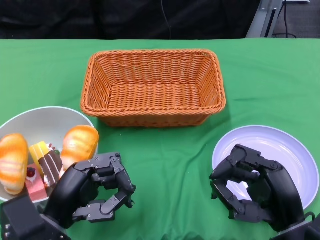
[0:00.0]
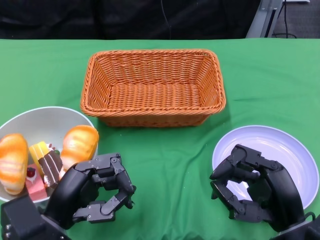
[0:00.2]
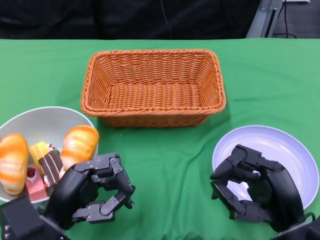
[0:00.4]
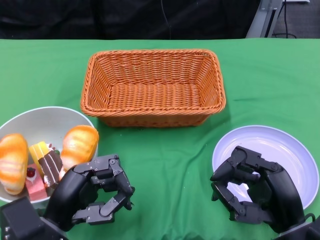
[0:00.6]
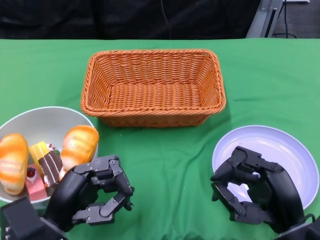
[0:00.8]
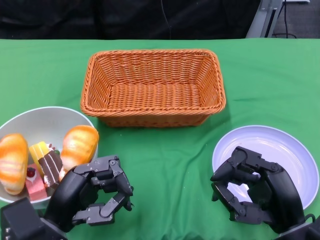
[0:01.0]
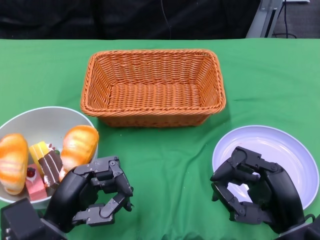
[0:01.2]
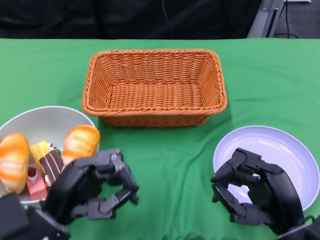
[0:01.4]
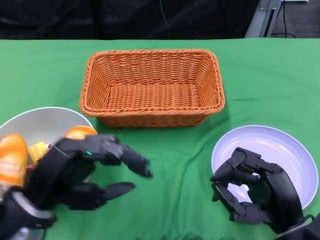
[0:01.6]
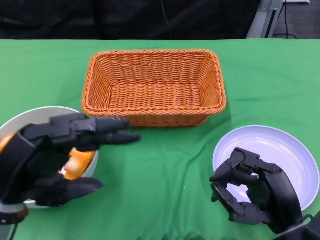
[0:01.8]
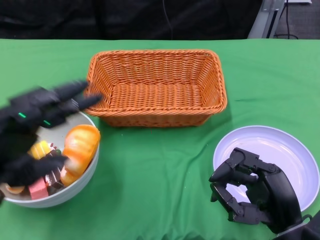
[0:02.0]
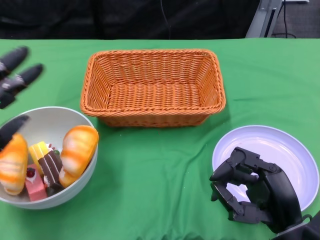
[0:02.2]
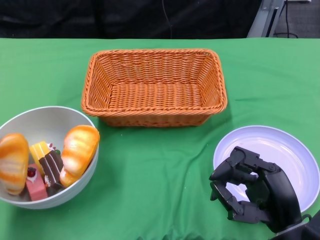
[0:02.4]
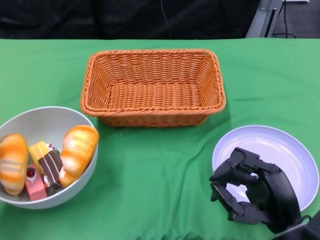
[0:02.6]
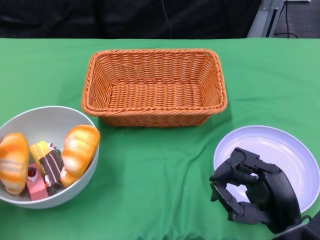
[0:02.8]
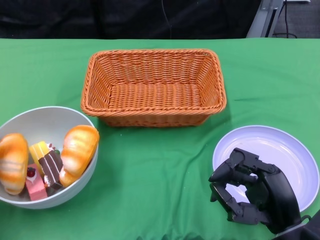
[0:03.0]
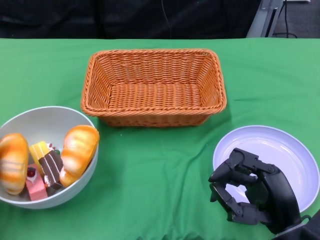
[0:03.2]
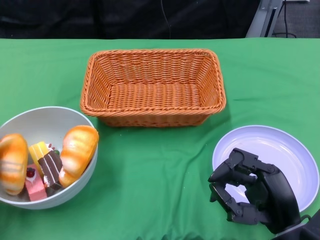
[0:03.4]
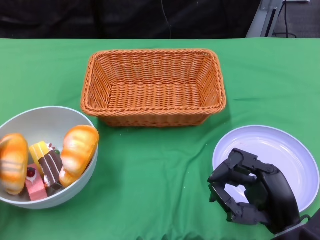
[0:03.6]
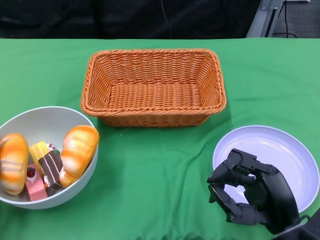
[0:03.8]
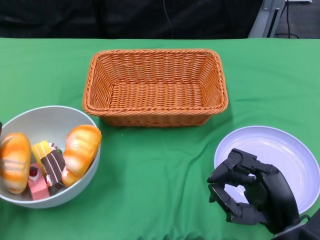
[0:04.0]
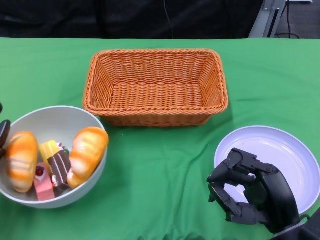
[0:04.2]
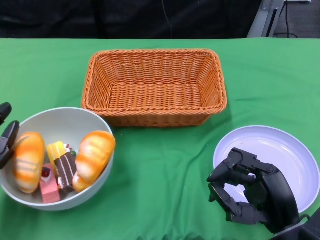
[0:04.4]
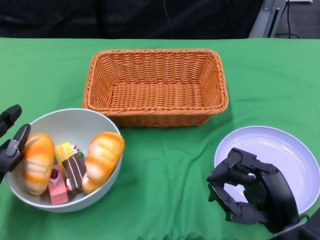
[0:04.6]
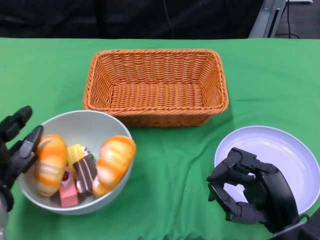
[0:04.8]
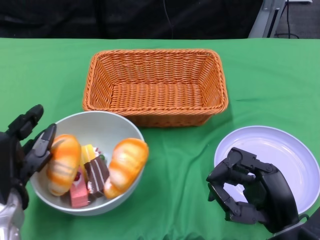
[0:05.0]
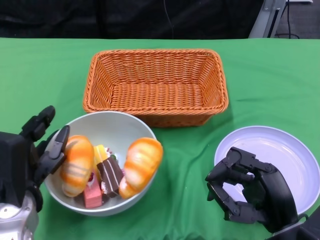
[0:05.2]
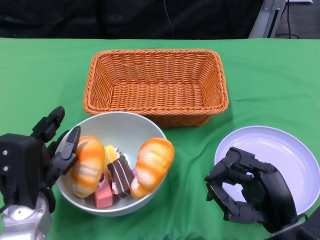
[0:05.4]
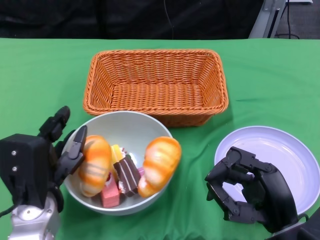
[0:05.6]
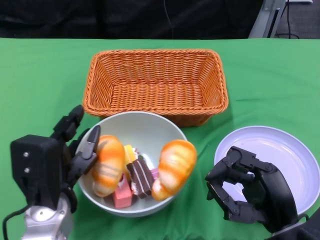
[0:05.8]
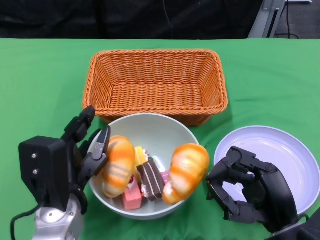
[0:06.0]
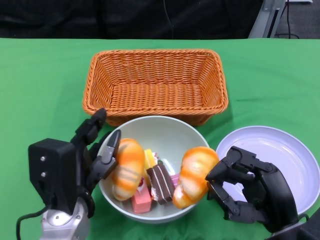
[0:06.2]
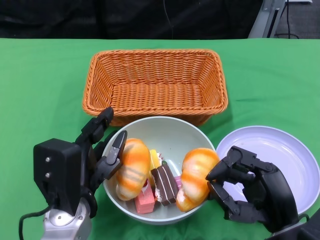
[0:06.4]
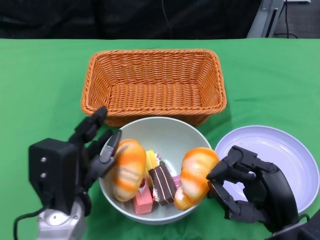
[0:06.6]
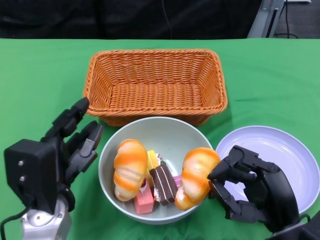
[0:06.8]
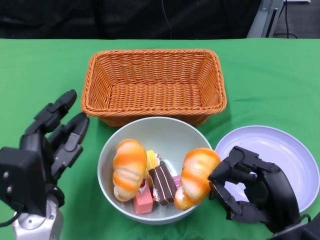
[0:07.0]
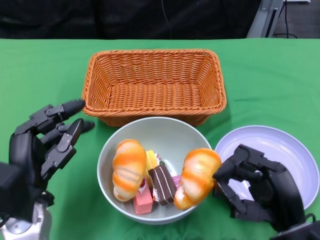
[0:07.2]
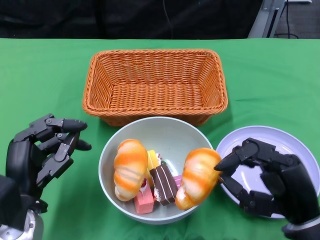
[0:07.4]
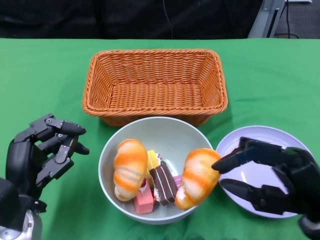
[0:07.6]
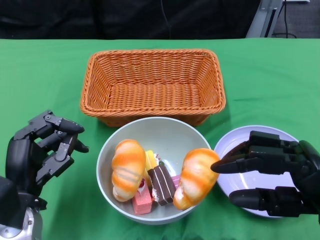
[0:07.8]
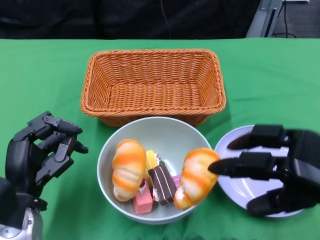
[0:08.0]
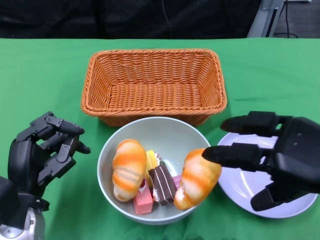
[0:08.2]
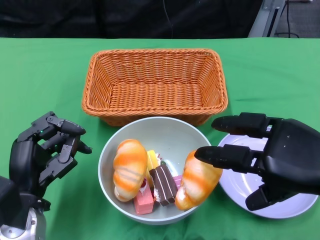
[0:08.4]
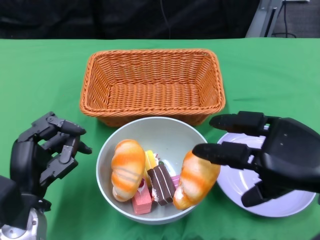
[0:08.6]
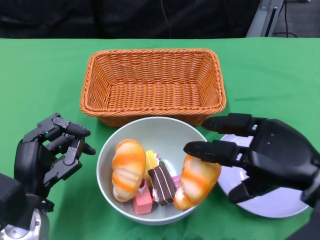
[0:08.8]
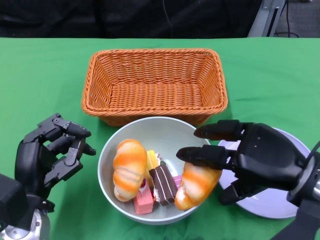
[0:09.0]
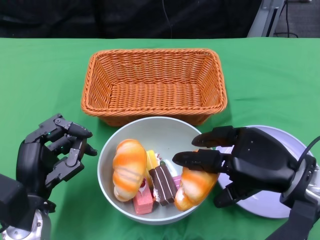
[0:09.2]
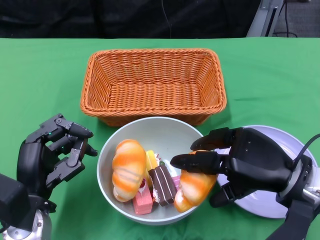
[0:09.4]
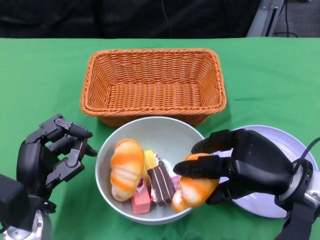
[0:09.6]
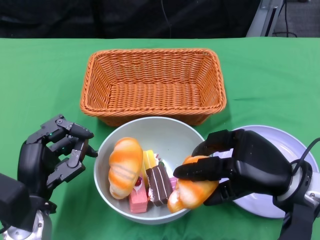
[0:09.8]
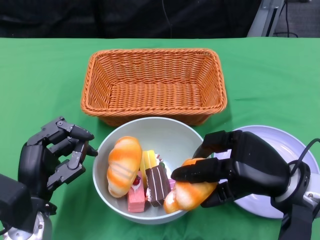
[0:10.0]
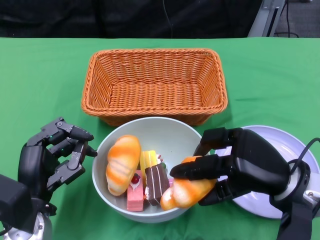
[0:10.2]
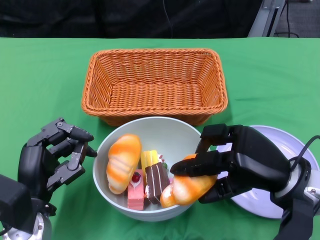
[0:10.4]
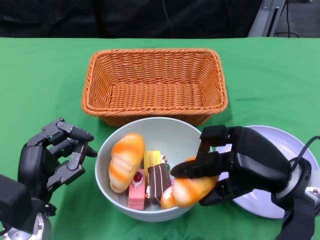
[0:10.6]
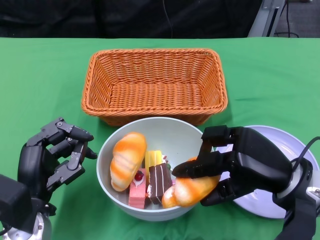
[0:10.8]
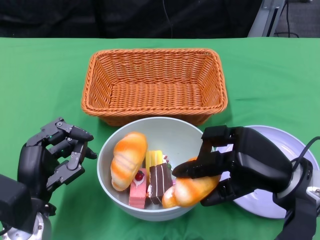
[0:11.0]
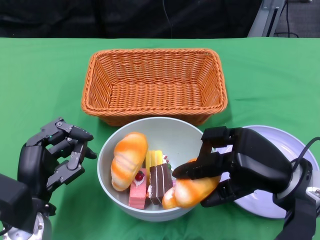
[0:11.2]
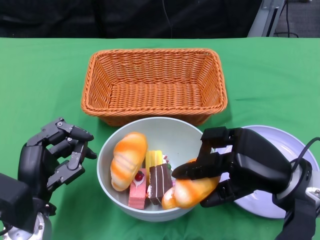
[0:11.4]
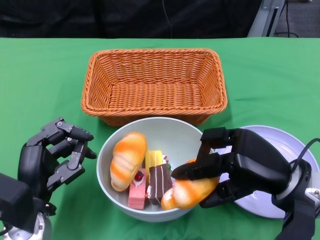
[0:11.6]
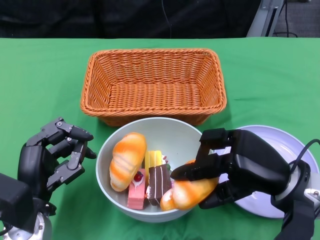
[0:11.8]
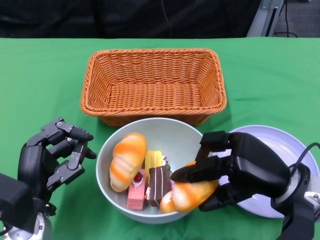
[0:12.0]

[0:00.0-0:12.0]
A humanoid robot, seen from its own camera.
Step, 0:00.0 to 0:06.6: Push the bowl to the center of the table using the left gripper.
0:01.6 to 0:03.0: The left hand heads to the left, covering roughly 15 cm.
0:04.4 to 0:06.0: The left hand travels to the right by some 15 cm.
0:06.0 to 0:07.6: The left hand goes about 5 cm to the left, while the right hand changes place by roughly 5 cm.
0:07.6 to 0:09.0: The right hand goes about 5 cm forward.
0:09.0 to 0:10.4: The hands make only small movements.
0:10.4 to 0:12.0: There are only small adjustments of the hands.

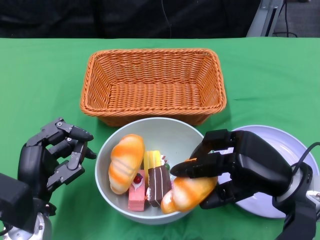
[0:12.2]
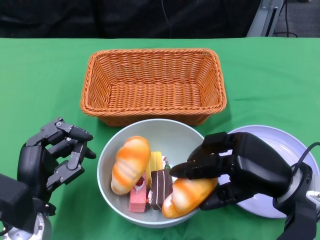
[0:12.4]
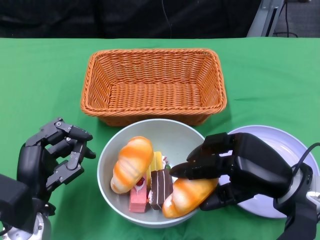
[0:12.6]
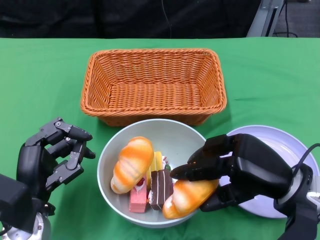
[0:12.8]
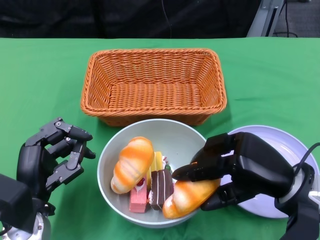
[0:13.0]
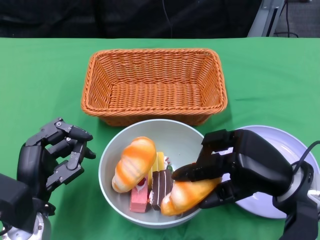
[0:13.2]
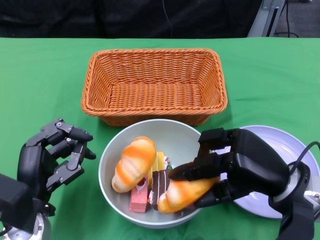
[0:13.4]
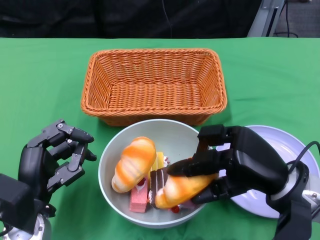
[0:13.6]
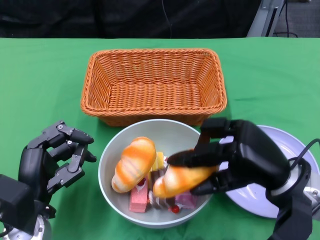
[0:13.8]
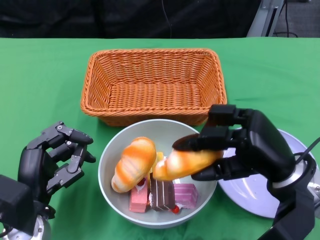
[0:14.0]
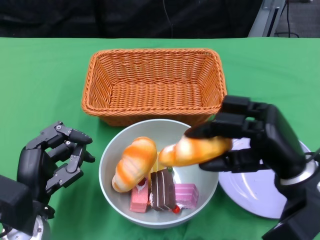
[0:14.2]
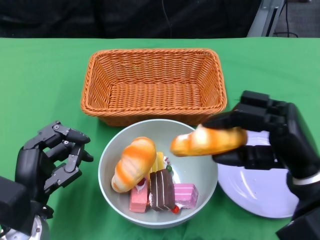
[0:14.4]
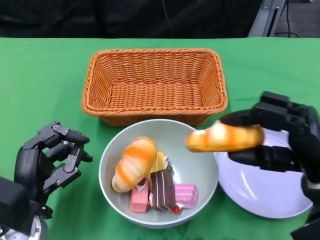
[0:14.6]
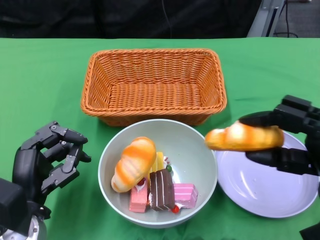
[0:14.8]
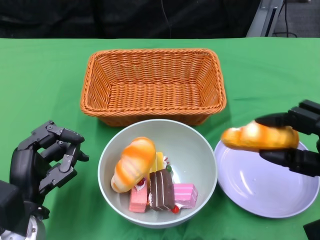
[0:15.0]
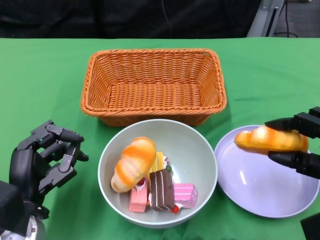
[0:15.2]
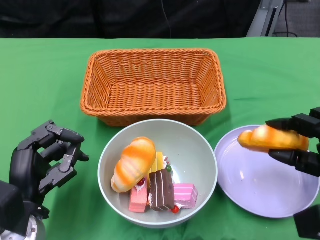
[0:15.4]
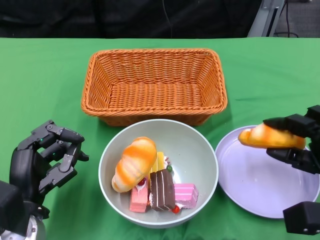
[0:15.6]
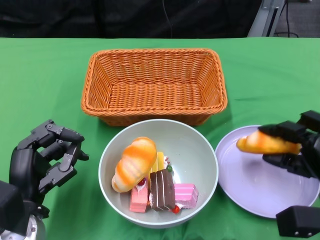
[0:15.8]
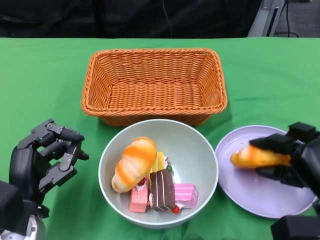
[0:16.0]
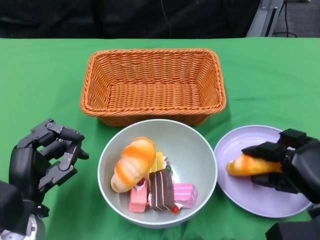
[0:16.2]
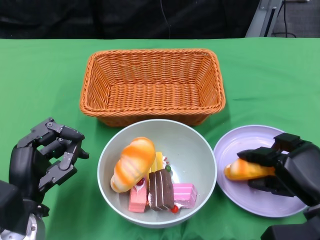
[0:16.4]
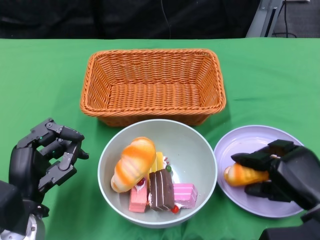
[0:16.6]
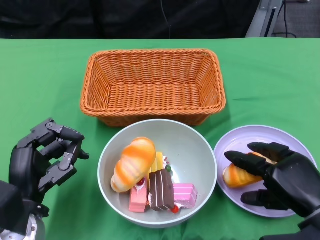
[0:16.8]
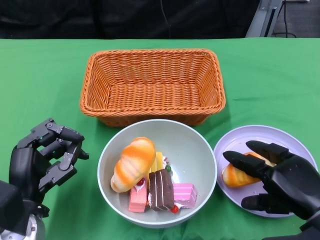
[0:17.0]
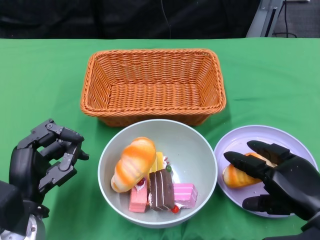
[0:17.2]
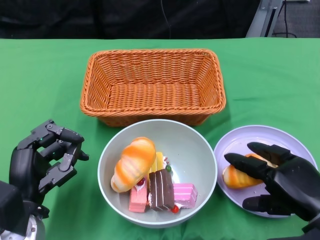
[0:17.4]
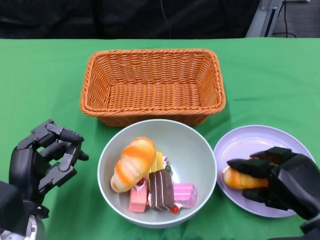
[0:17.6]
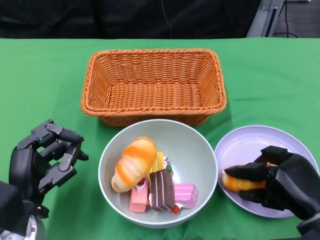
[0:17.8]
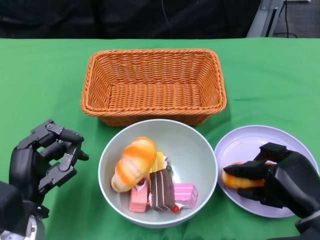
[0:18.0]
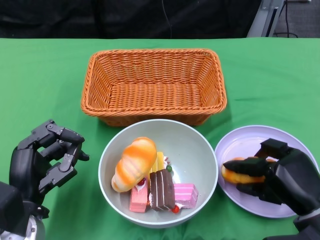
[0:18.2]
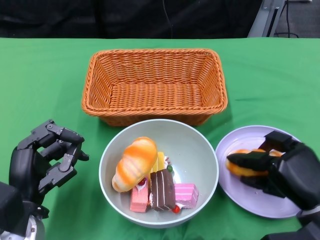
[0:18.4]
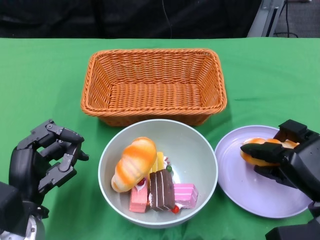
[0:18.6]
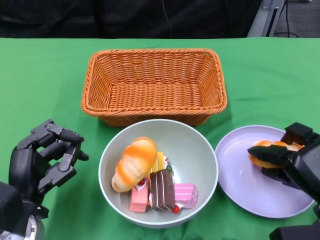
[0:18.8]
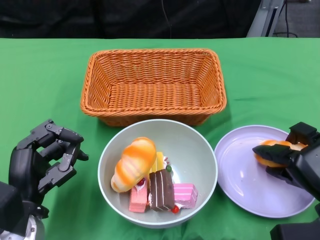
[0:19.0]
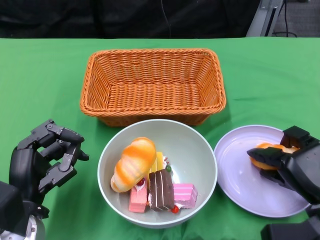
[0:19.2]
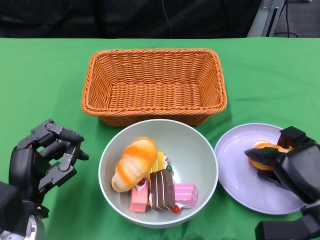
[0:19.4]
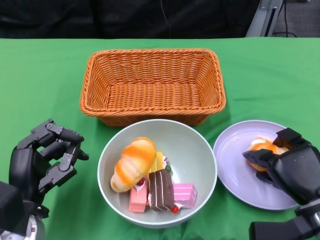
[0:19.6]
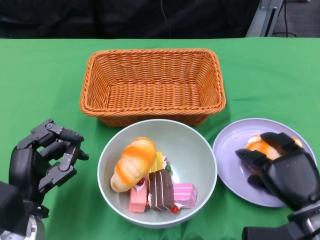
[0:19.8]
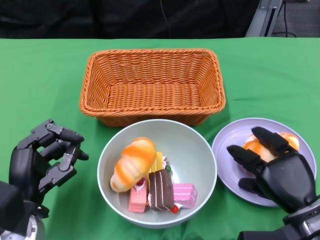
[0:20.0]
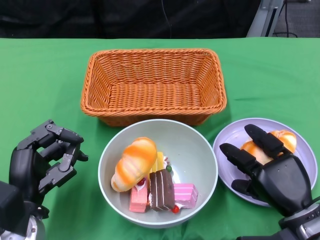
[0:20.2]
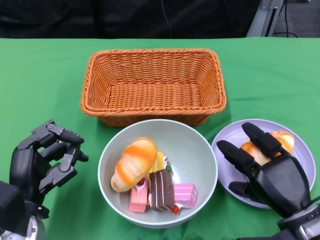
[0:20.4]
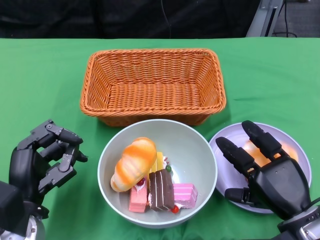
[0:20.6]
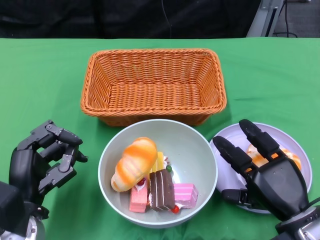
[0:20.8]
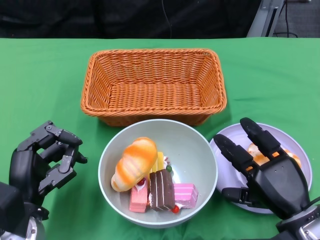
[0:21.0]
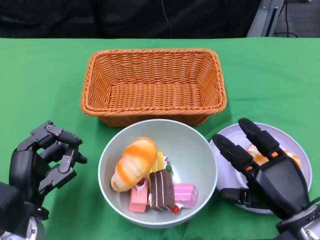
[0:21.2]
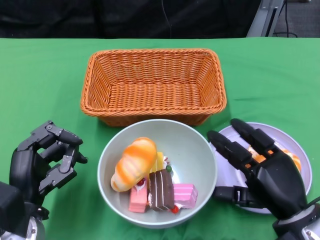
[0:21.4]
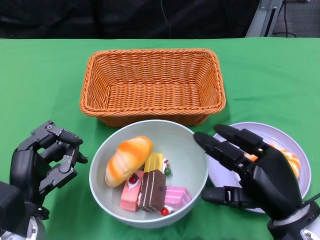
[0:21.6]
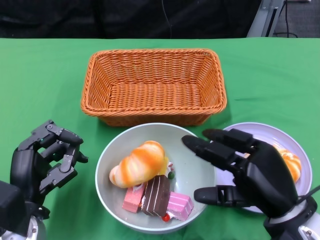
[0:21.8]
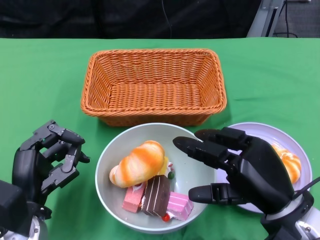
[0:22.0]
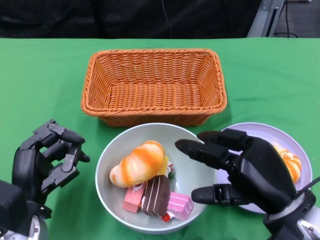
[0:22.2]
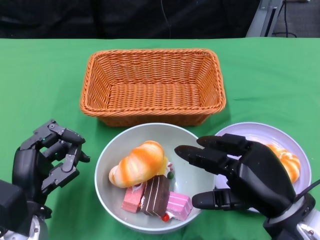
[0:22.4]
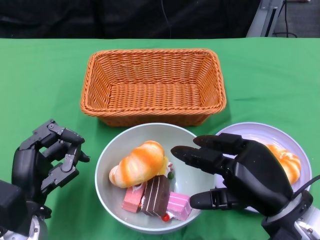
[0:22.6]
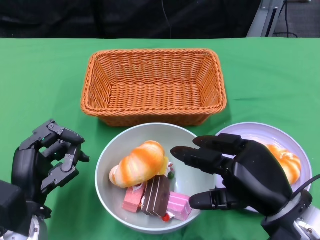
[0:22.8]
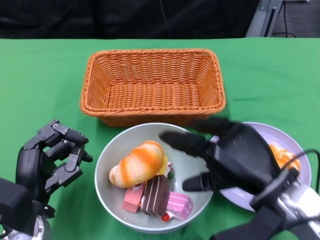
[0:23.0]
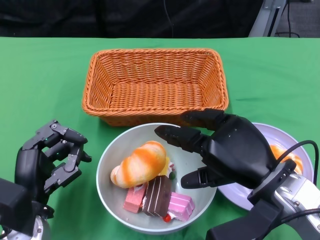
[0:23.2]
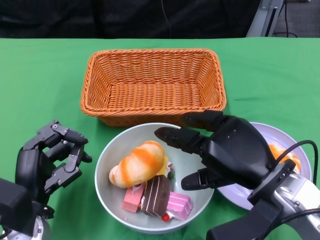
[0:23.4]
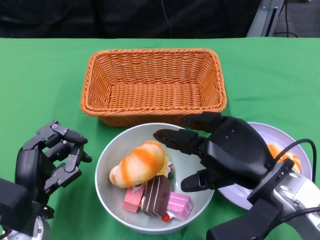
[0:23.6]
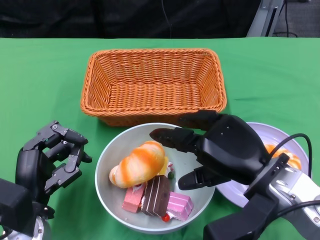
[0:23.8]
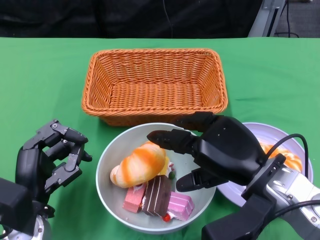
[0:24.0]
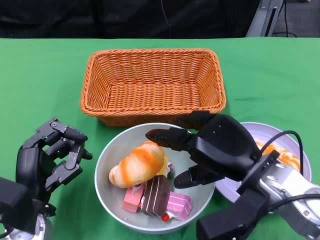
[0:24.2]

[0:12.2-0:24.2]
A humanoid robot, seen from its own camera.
Step, 0:12.2 to 0:21.2: Pick up the bread with the right gripper and place it on the plate.
0:12.2 to 0:13.8: The hands make only small movements.
0:13.8 to 0:15.2: The right hand travels to the right by approximately 10 cm.
0:15.2 to 0:16.6: The right hand moves some 5 cm.
0:16.6 to 0:18.2: The hands make only small movements.
0:19.8 to 0:21.2: The hands make only small movements.
0:21.2 to 0:22.6: The right hand shifts about 5 cm upward.
0:22.6 to 0:24.2: The right hand changes place by approximately 5 cm.
